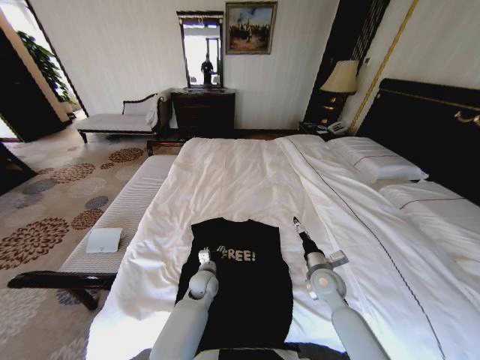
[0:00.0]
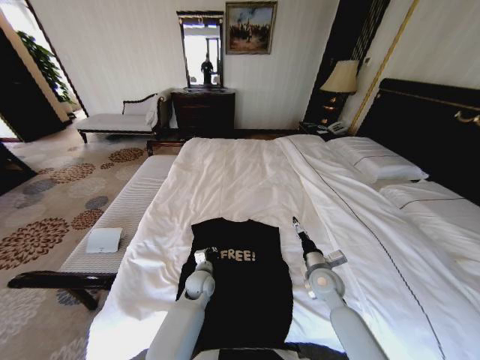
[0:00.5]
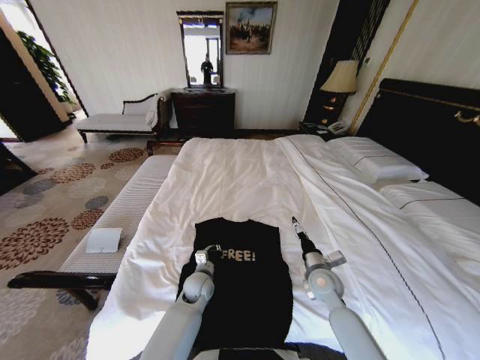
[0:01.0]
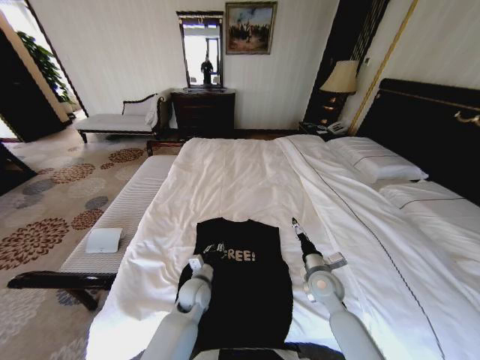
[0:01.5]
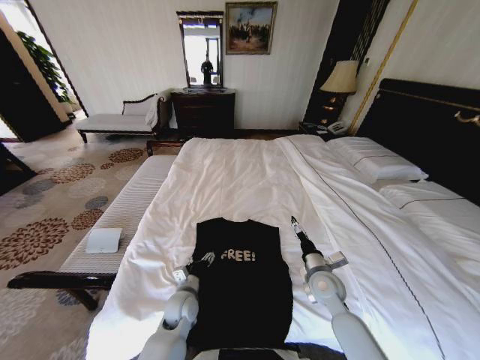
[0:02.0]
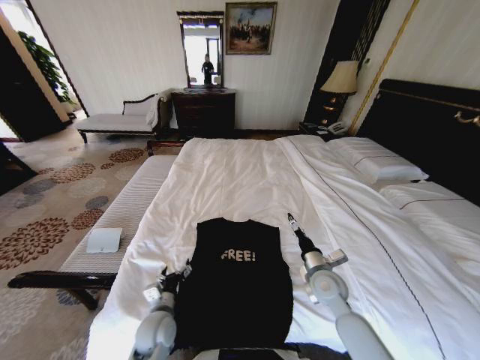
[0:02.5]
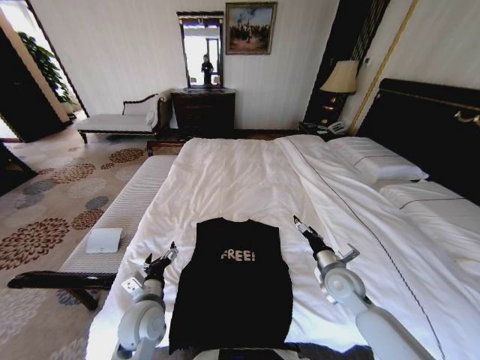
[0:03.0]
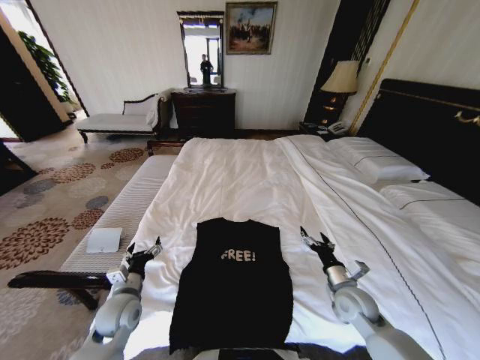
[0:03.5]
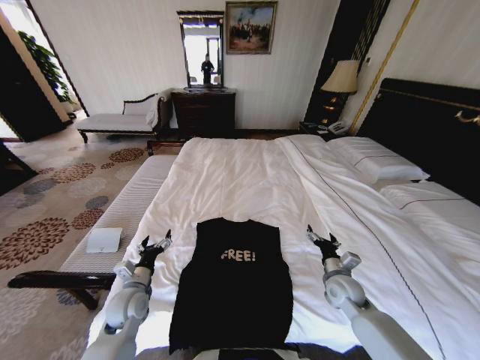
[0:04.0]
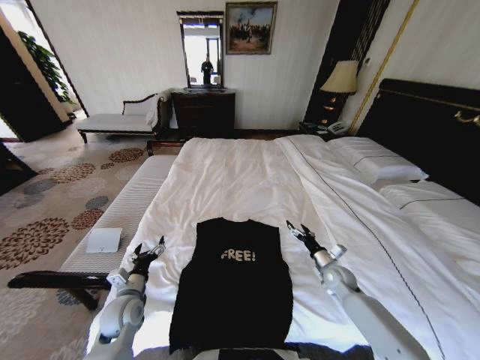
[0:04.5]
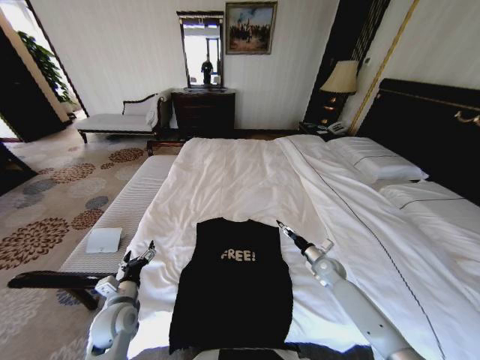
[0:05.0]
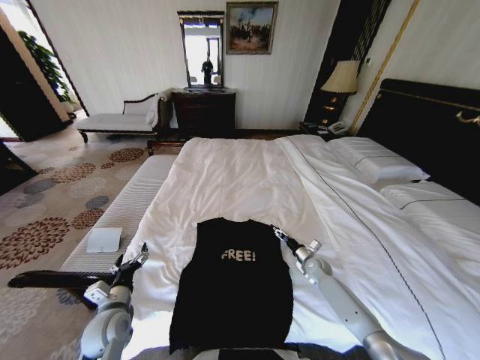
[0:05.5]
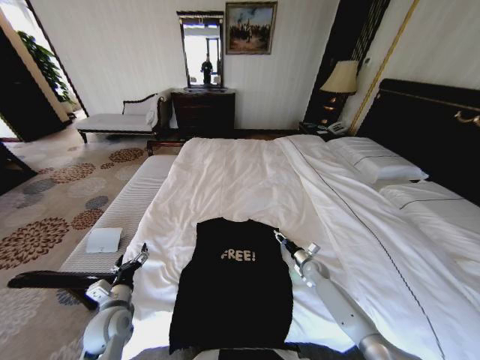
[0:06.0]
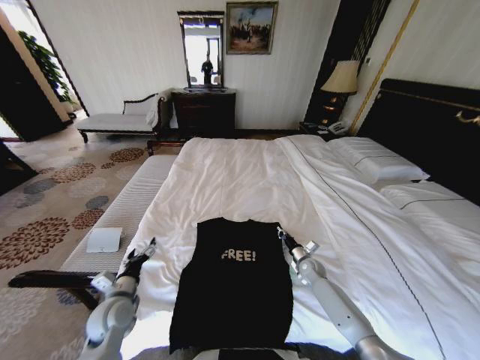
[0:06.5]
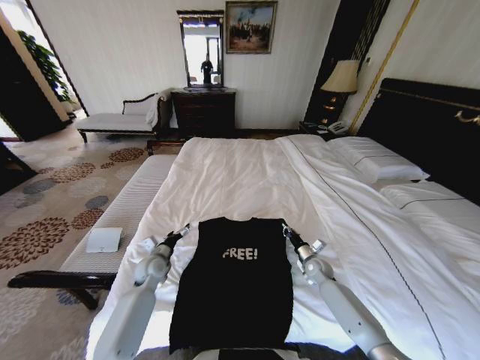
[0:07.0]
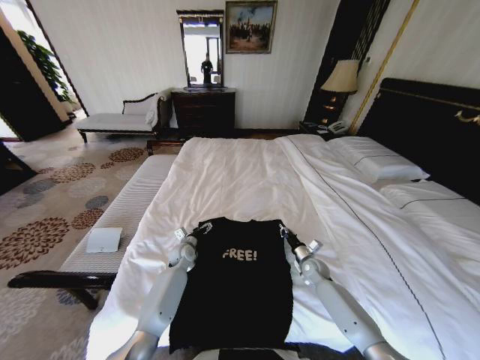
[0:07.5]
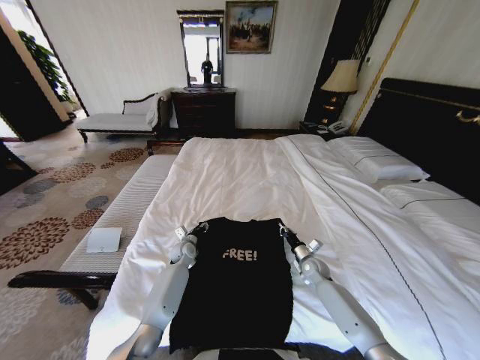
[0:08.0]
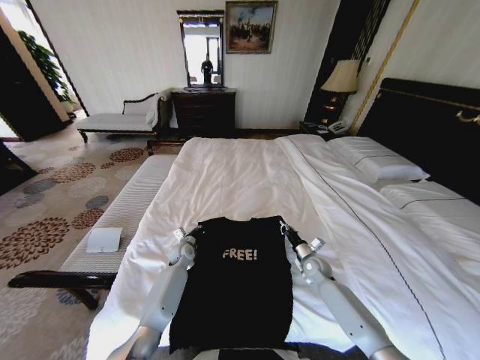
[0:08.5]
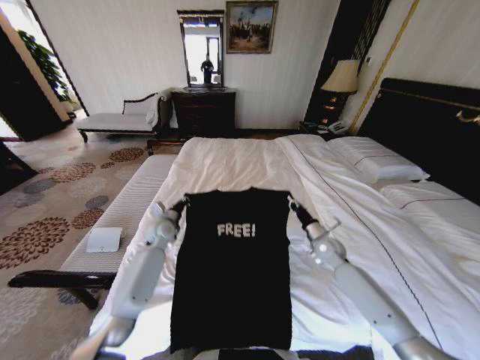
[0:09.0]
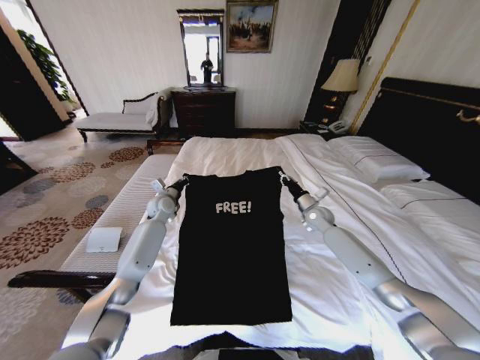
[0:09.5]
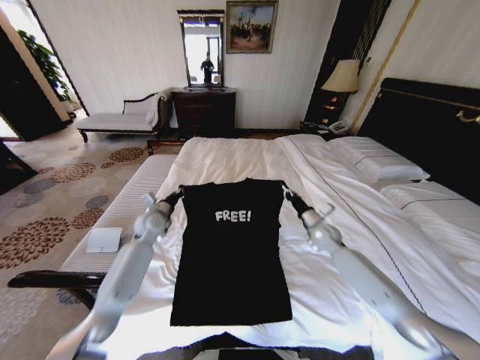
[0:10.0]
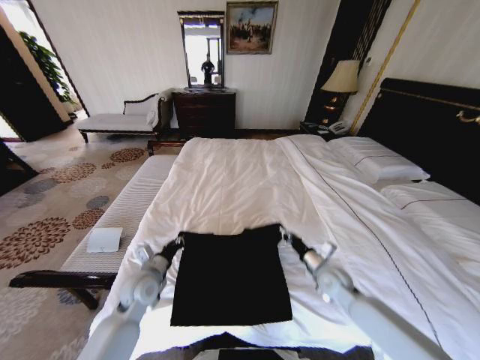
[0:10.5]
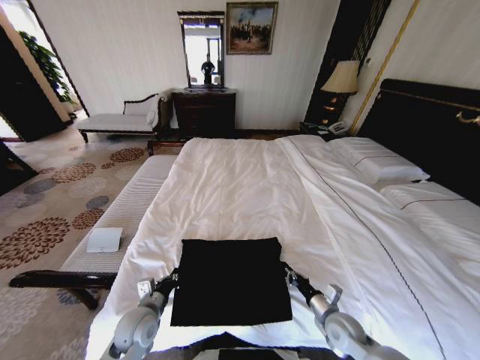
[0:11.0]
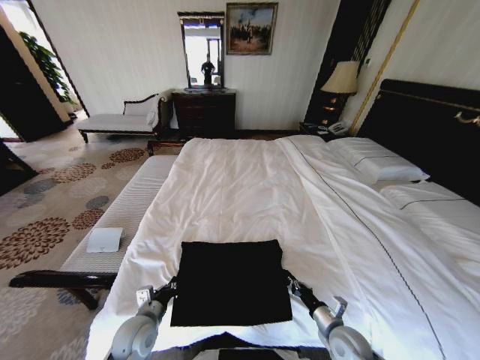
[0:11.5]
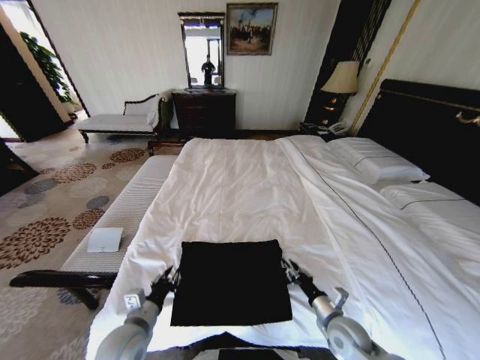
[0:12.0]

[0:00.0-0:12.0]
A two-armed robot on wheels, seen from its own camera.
Task of the whole recording: Fold the clothes on the bed.
0.0 to 2.0 s: The left gripper travels backward and to the left by approximately 10 cm, and closes, then reopens.
2.0 to 4.0 s: The right gripper goes about 5 cm to the right. The left gripper moves to the left and upward, roughly 15 cm.
4.0 to 6.0 s: The right gripper goes some 15 cm downward and forward, and closes. Meanwhile the left gripper shifts by some 5 cm.
6.0 to 8.0 s: The right gripper closes. Meanwhile the left gripper shifts about 30 cm forward and to the right, and closes.
8.0 to 10.0 s: The left gripper heads upward and to the left, covering some 20 cm, and closes its fingers, while the right gripper travels upward by about 15 cm.
10.0 to 12.0 s: Both grippers travel together backward, roughly 30 cm.

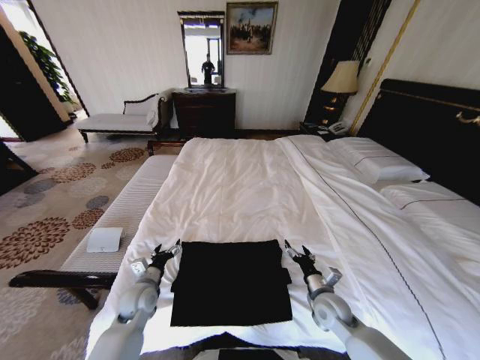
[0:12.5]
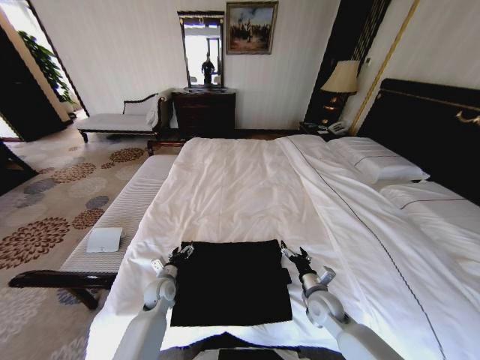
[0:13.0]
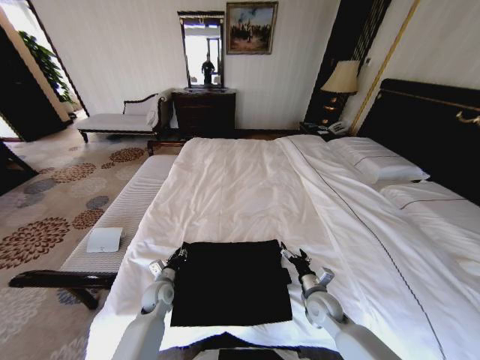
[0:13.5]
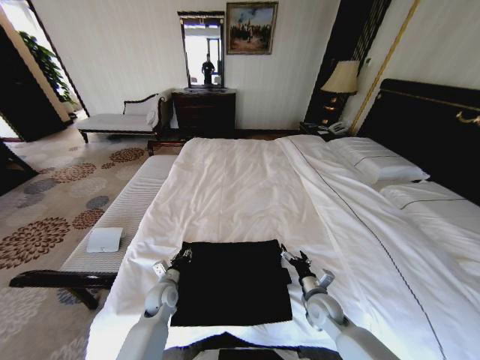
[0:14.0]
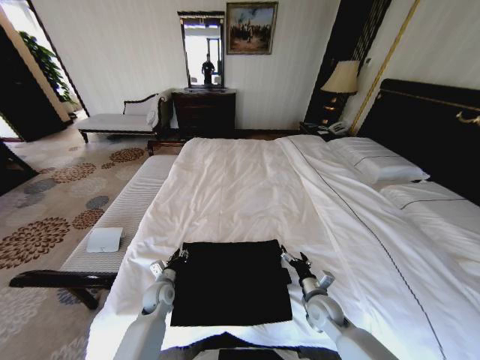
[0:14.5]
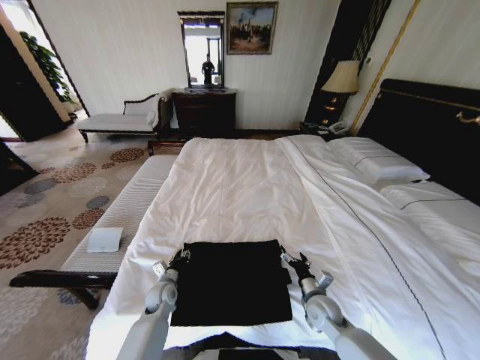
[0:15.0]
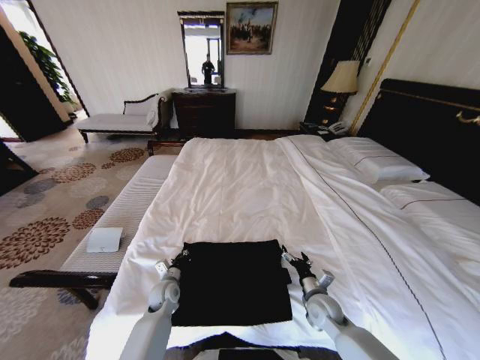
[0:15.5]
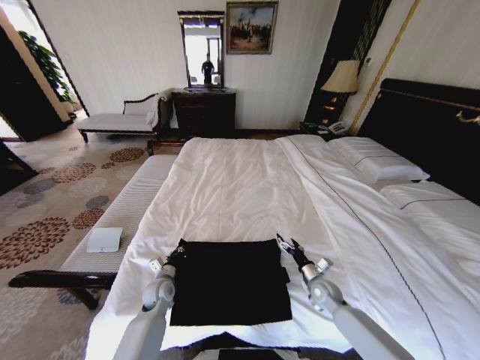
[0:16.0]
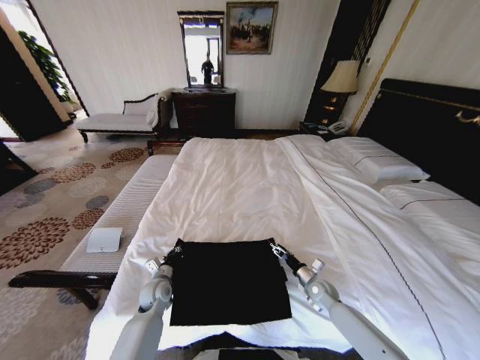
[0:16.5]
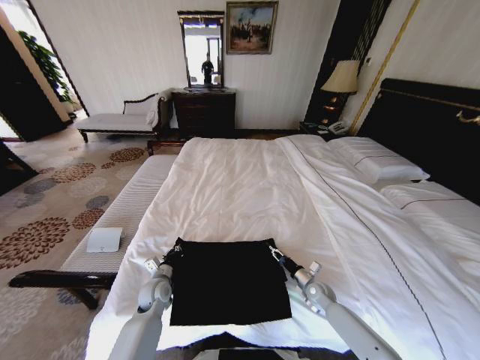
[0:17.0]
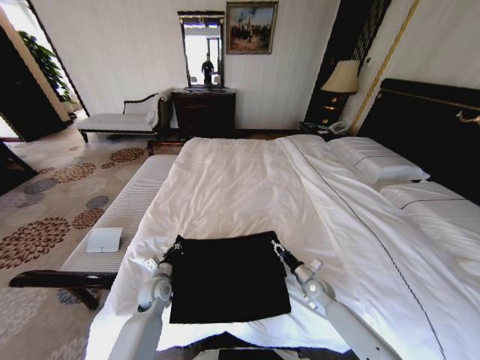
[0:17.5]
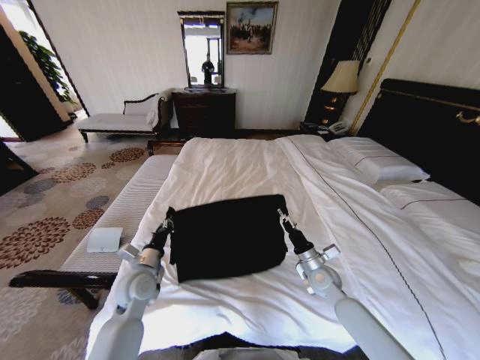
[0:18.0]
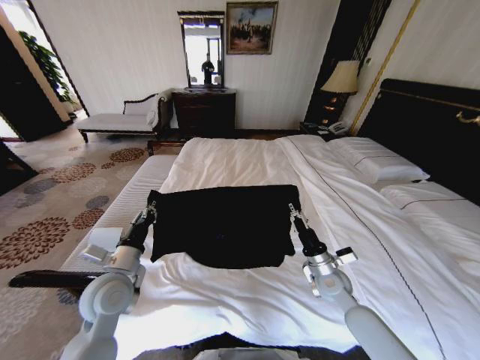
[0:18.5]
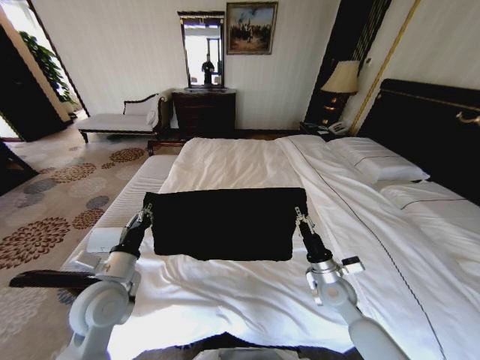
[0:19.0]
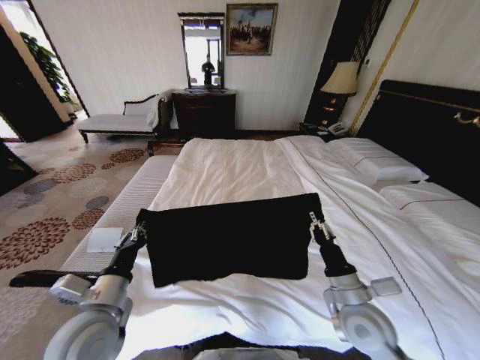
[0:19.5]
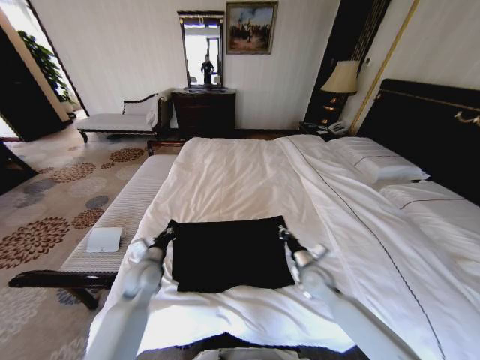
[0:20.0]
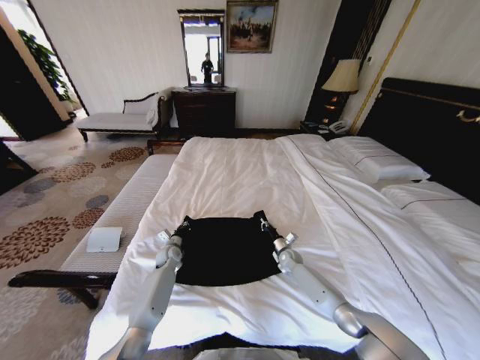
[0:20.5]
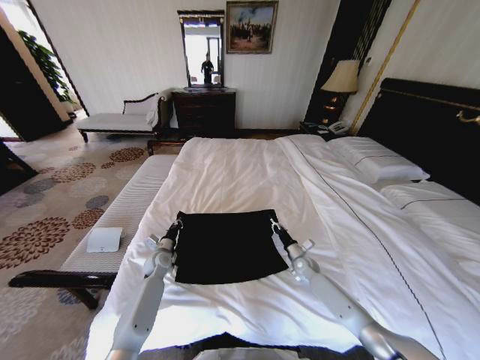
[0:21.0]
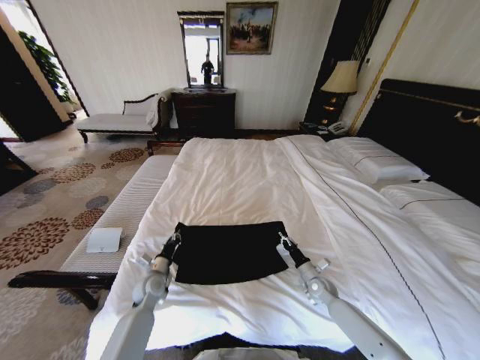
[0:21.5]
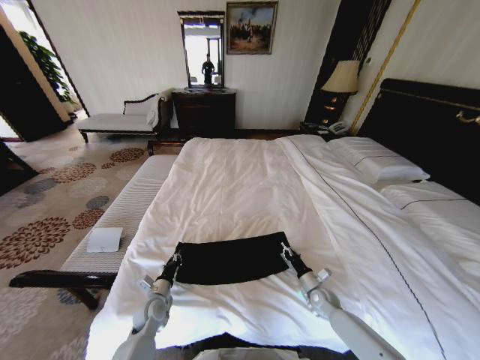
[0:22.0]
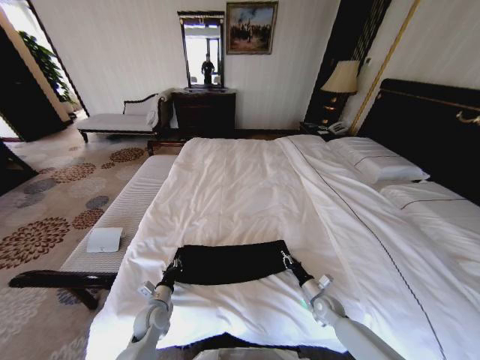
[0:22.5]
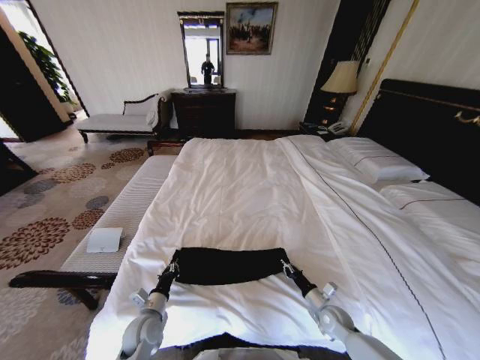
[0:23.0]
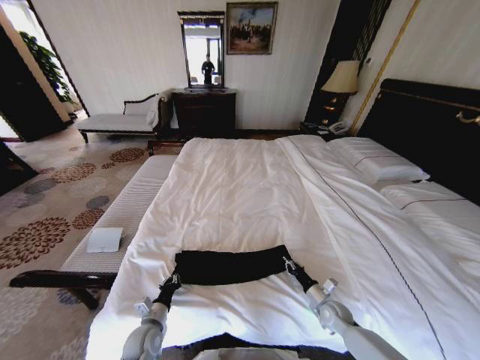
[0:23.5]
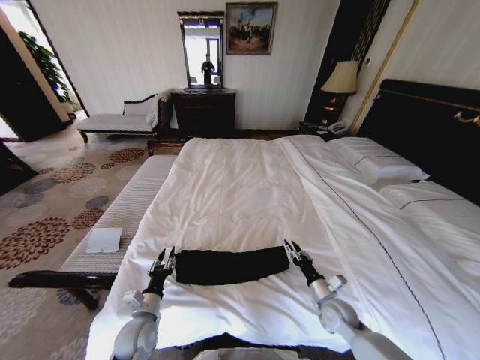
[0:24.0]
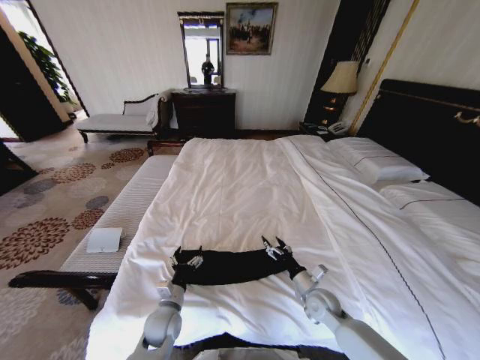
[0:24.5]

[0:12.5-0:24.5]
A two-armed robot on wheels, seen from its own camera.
Task of the whole recording: Fold the clothes on the bed.
12.5 to 14.5 s: The left gripper is displaced downward by approximately 5 cm, and closes its fingers.
14.5 to 16.5 s: The right gripper heads forward, downward and to the right, covering about 10 cm; the left gripper closes its fingers.
16.5 to 18.5 s: The two grippers go roughly 20 cm upward. The right gripper closes up.
18.5 to 20.5 s: The grippers both shift downward and forward by some 25 cm.
20.5 to 22.5 s: The right gripper shifts roughly 20 cm backward and to the right; the left gripper heads backward, covering roughly 20 cm.
22.5 to 24.5 s: The left gripper shifts about 5 cm to the right, and opens its fingers, while the right gripper heads upward and to the left, covering approximately 10 cm, and opens its fingers.

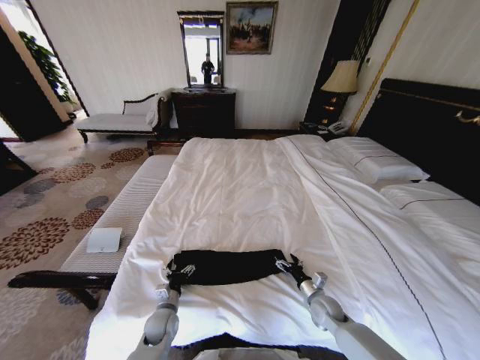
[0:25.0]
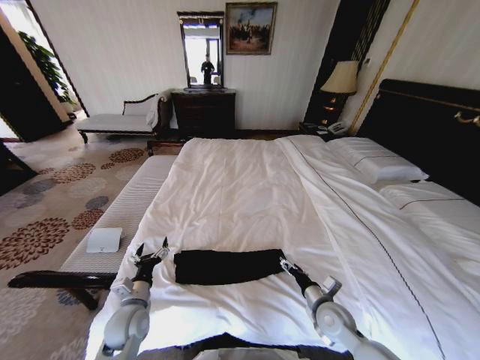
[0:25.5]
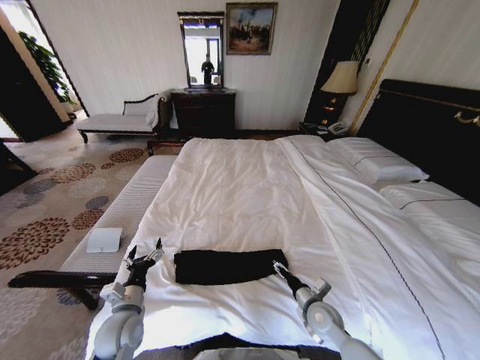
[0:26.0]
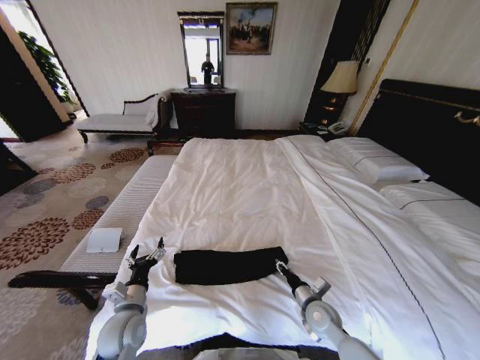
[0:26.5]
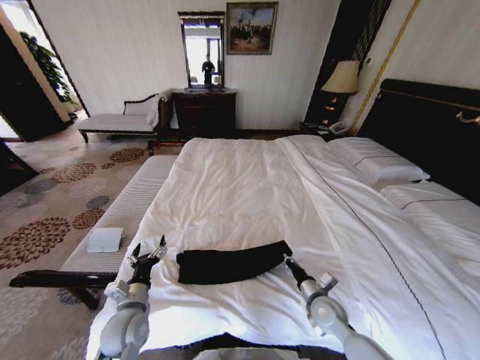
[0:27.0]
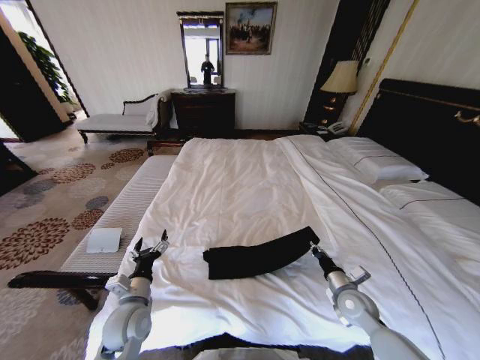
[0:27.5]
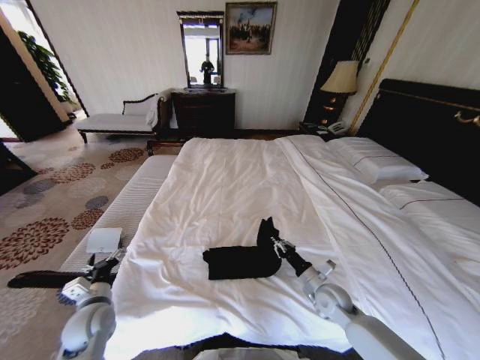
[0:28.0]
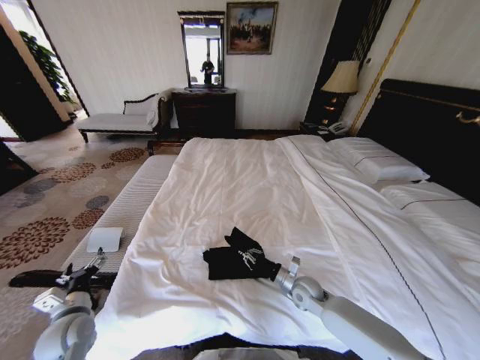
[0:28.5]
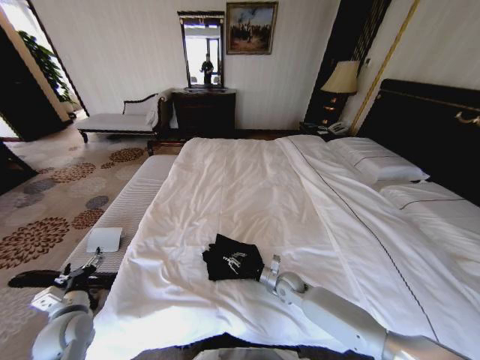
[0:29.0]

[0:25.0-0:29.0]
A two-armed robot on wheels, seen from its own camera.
Task of the whole recording: Fold the clothes on the bed.
25.0 to 27.0 s: The left gripper heads upward, covering roughly 15 cm. The right gripper travels upward by some 10 cm, and closes its fingers.
27.0 to 29.0 s: The left gripper moves to the left, about 15 cm. The right gripper heads forward and to the left, covering roughly 10 cm.
